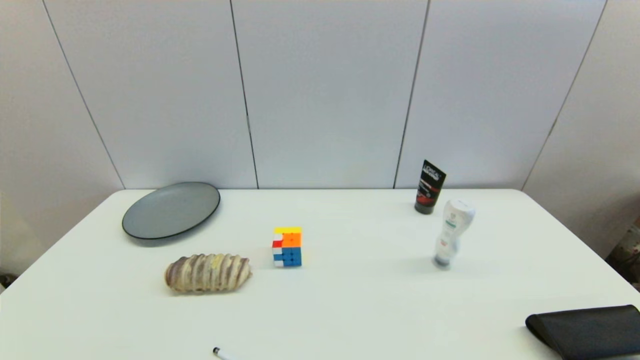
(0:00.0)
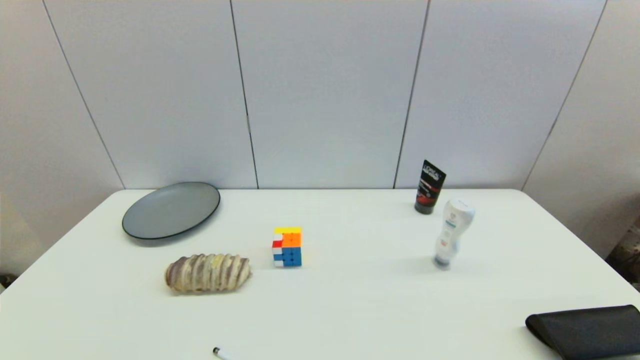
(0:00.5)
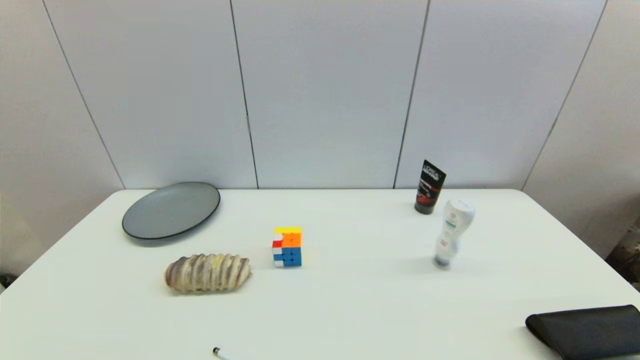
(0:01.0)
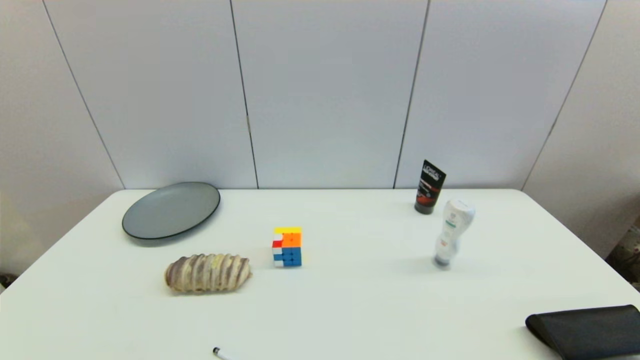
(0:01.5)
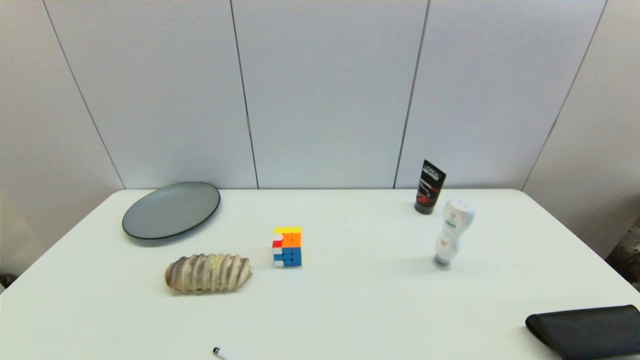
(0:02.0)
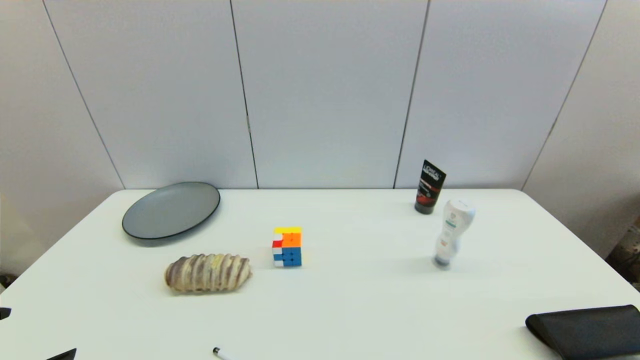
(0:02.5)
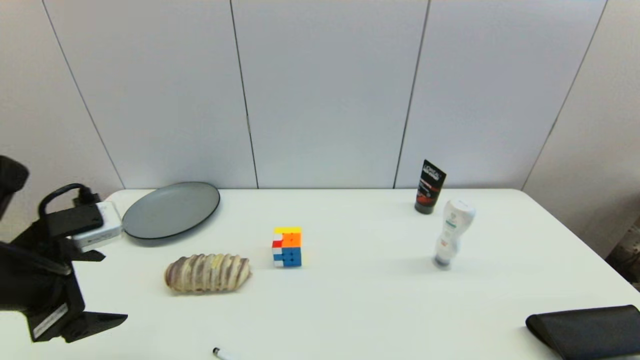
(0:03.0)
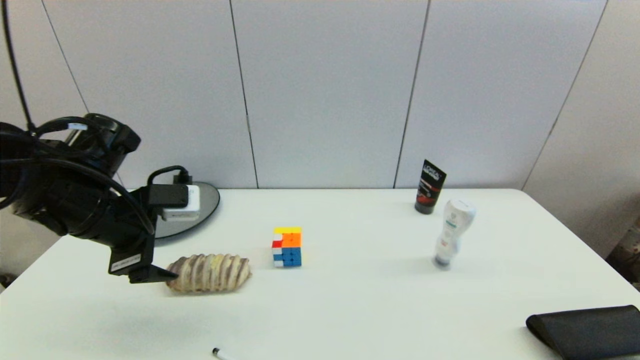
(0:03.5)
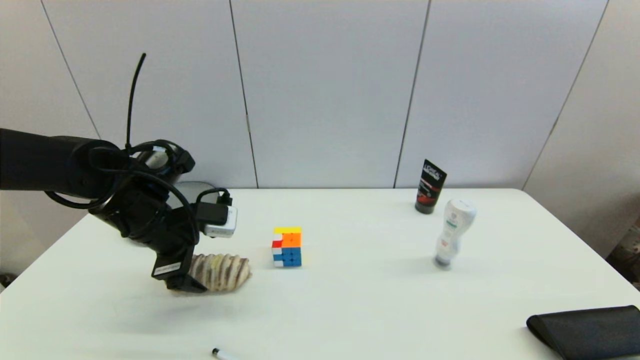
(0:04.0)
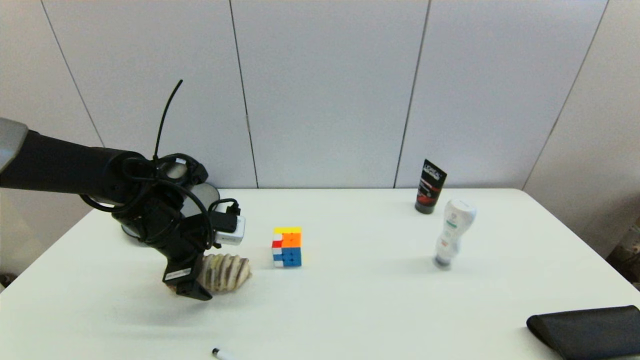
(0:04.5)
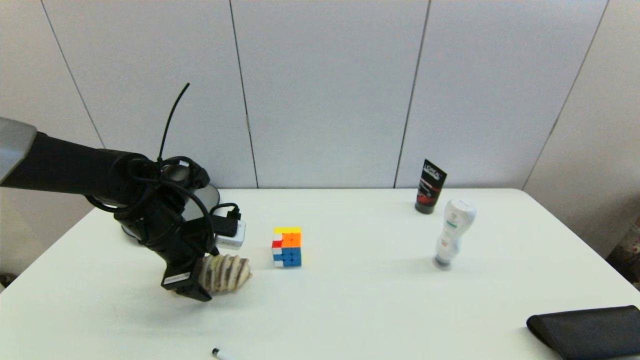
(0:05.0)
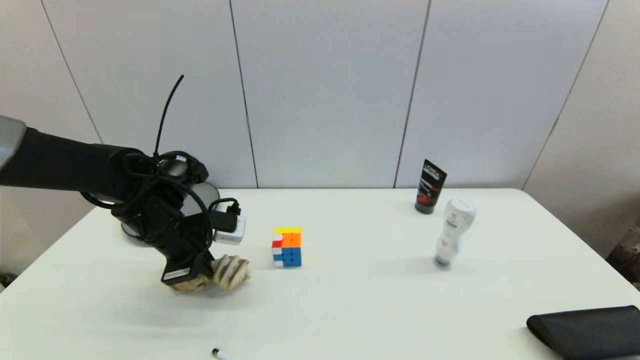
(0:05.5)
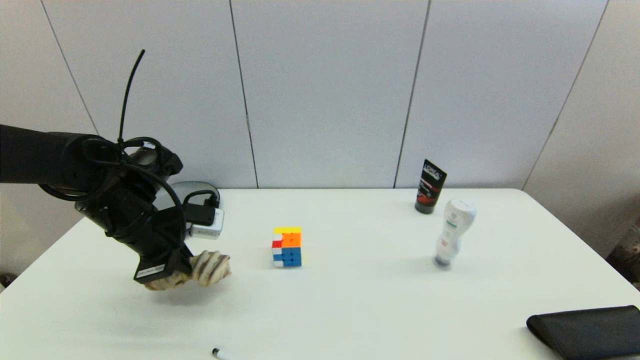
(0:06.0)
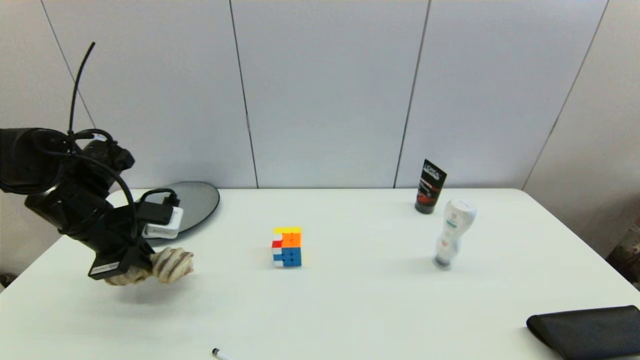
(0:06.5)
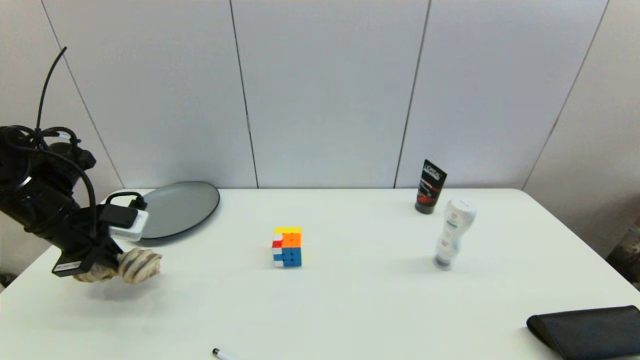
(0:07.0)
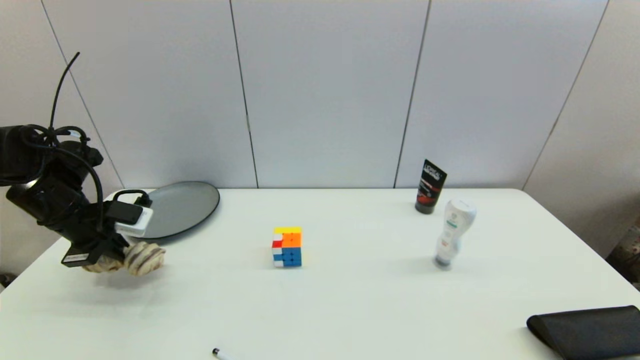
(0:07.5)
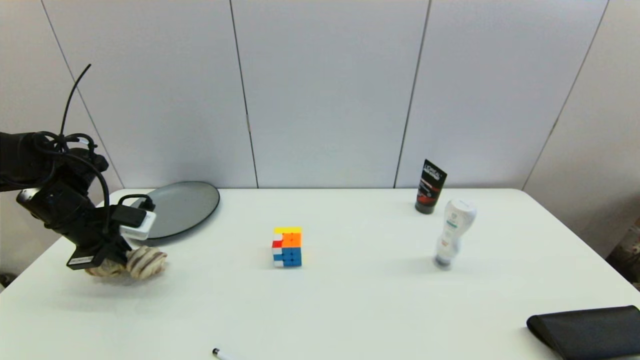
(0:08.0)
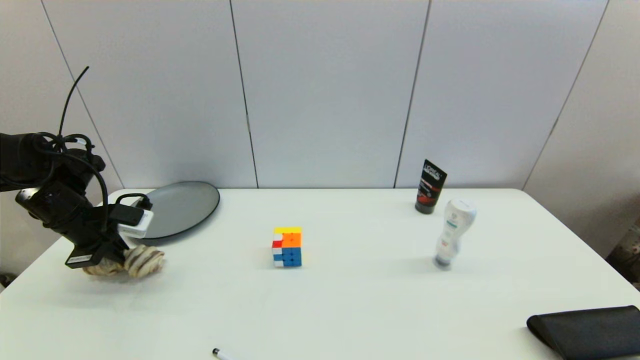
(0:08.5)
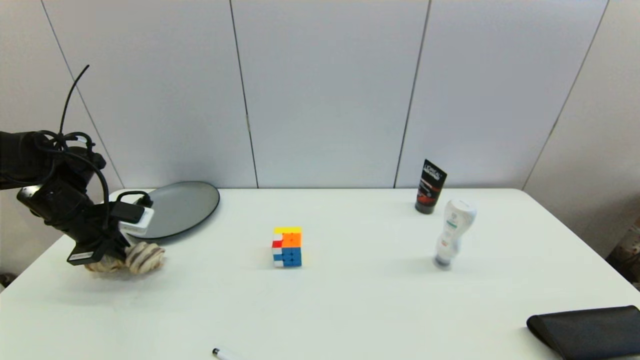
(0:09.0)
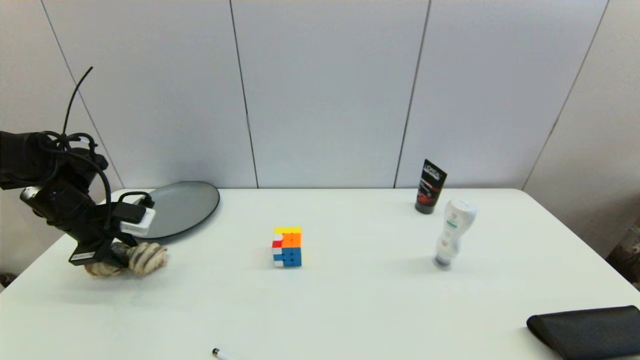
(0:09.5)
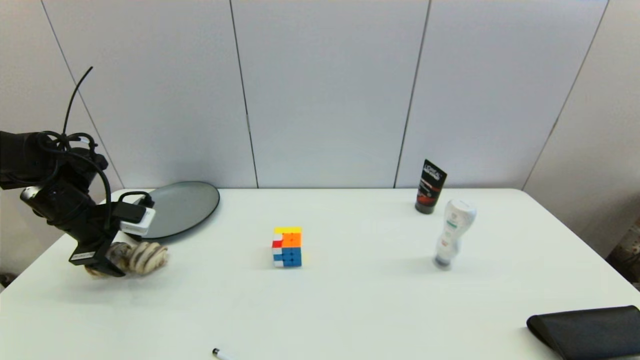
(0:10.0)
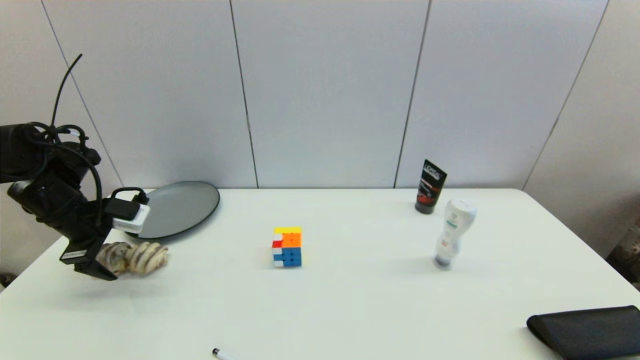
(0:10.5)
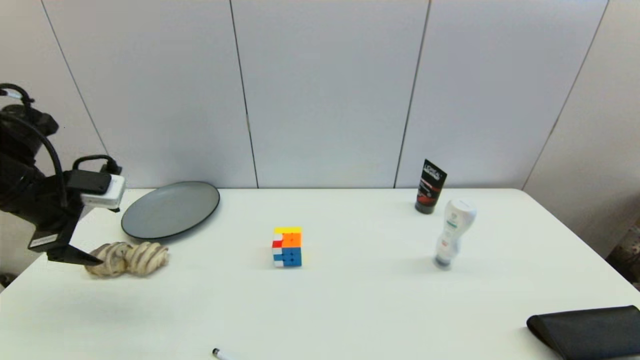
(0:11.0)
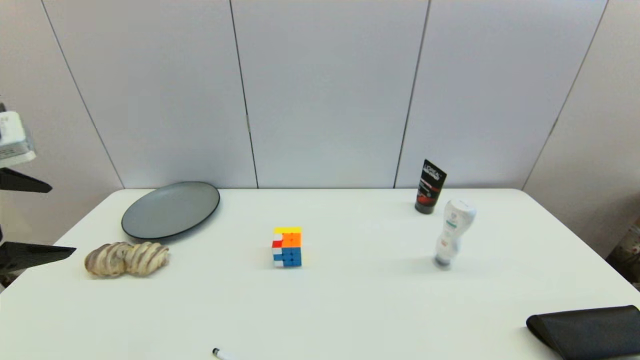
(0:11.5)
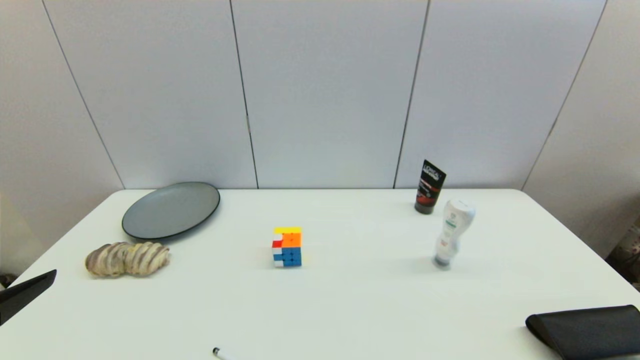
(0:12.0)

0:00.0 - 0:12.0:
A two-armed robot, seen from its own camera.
Step, 0:02.5 - 0:05.0: Grasp the long bread with left gripper.
Step, 0:05.5 - 0:09.5: Place the long bread on the table with left gripper.
0:02.0 - 0:04.0: The left gripper goes roughly 30 cm forward.
0:04.0 - 0:06.0: The left gripper closes.
0:06.0 - 0:08.0: The left gripper heads to the left, covering about 15 cm.
0:08.0 - 0:10.0: The left gripper opens up.
0:10.0 - 0:12.0: The left gripper is displaced backward by roughly 30 cm.

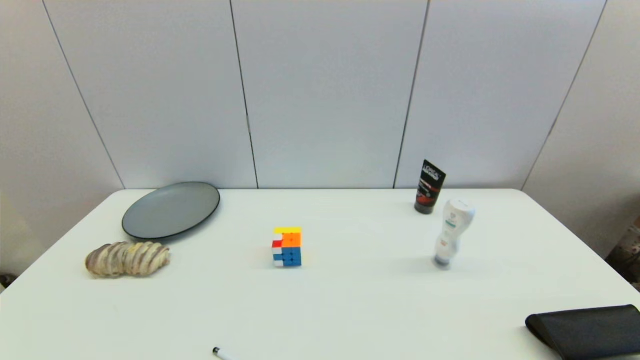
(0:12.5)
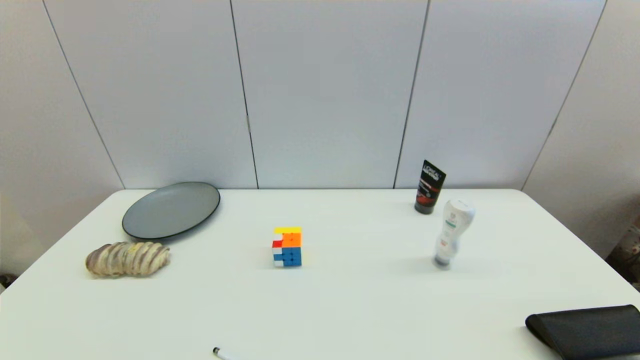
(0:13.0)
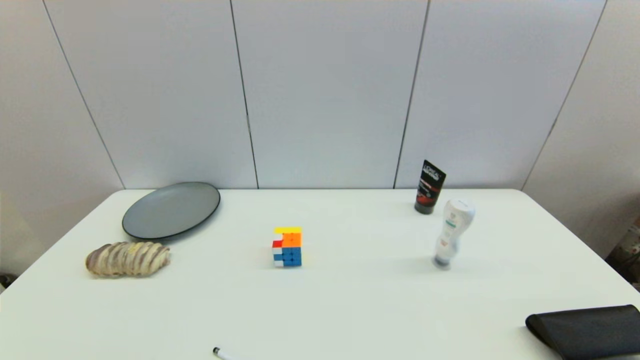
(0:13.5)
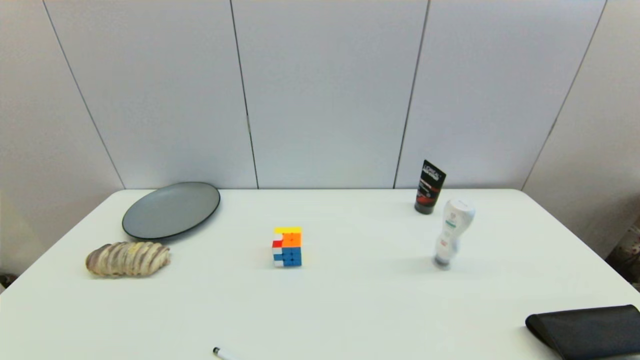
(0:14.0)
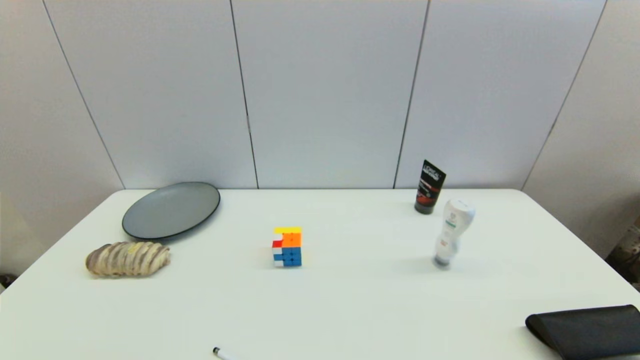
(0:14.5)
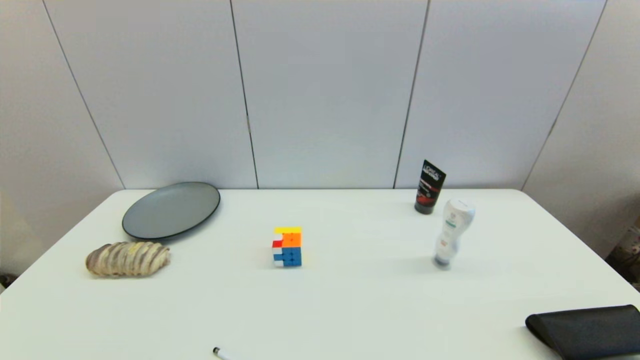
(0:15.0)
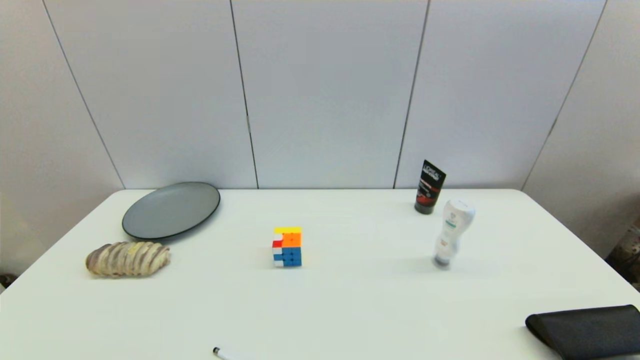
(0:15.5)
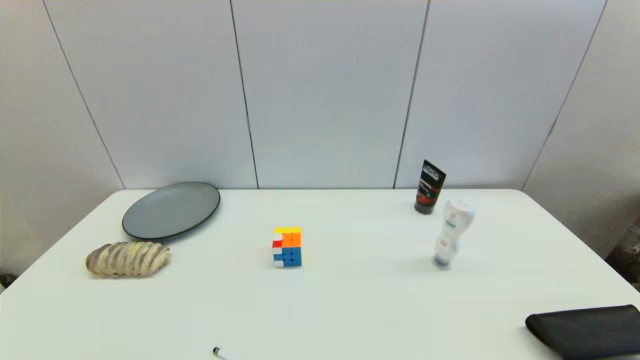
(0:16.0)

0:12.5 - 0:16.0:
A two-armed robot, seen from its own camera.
0:14.5 - 0:16.0: Both grippers stay put.

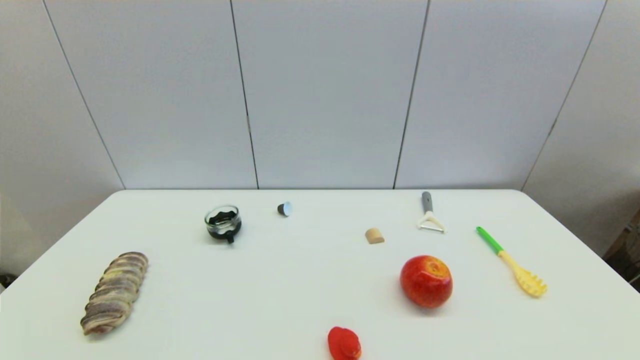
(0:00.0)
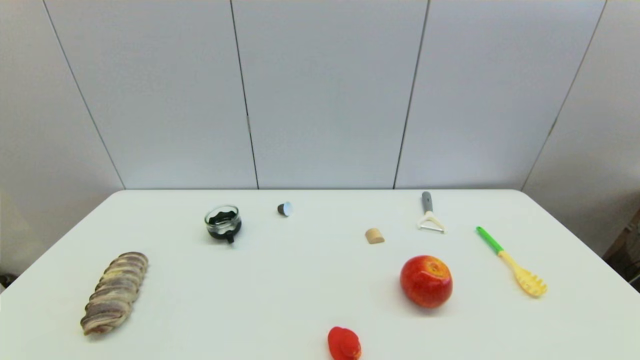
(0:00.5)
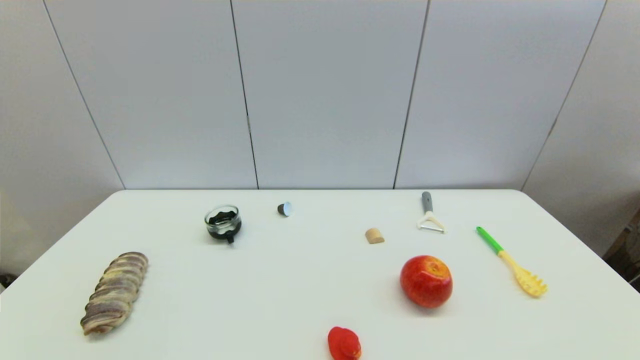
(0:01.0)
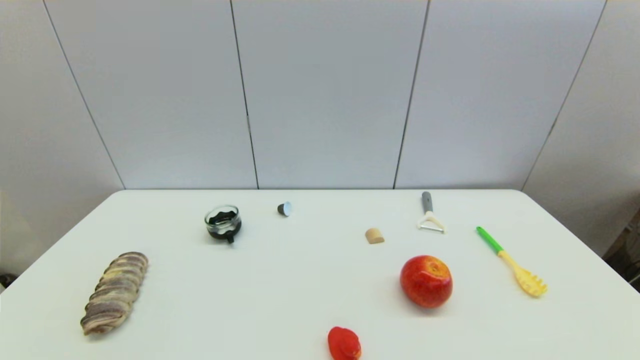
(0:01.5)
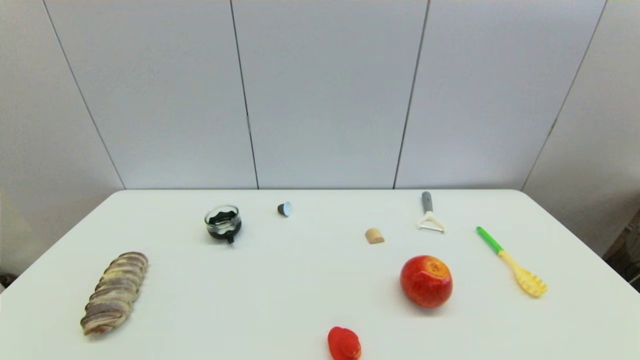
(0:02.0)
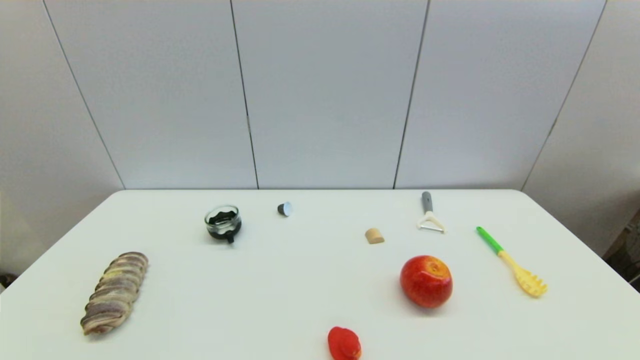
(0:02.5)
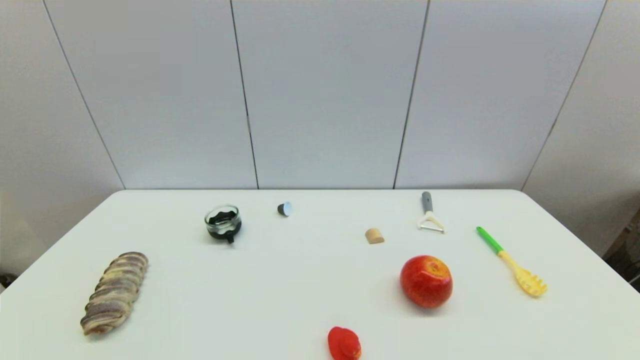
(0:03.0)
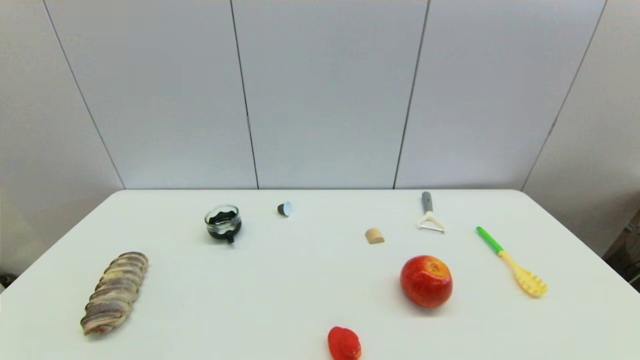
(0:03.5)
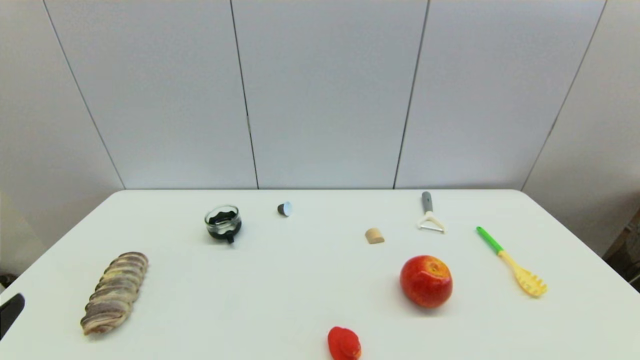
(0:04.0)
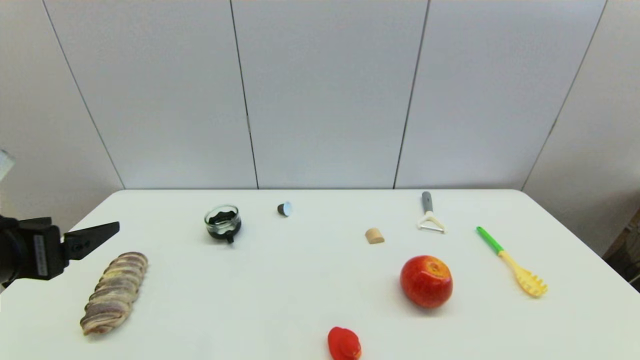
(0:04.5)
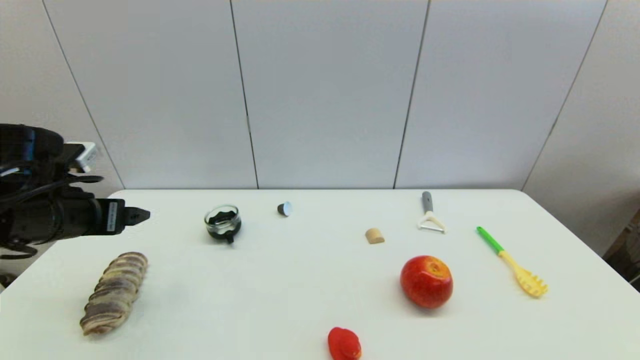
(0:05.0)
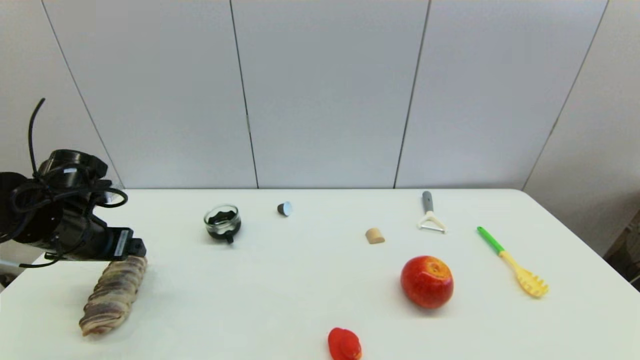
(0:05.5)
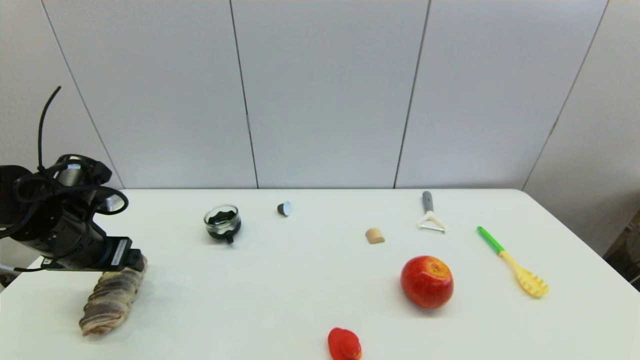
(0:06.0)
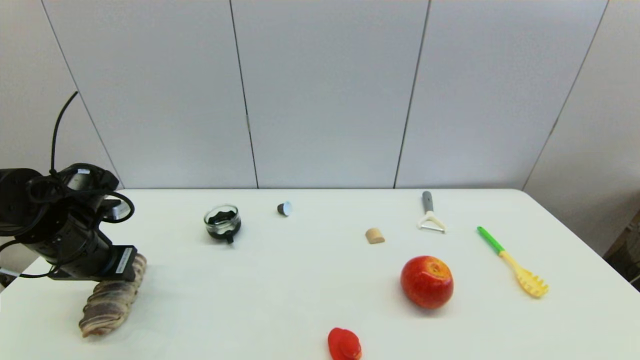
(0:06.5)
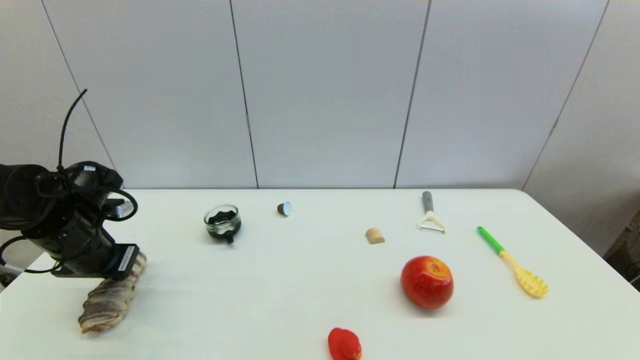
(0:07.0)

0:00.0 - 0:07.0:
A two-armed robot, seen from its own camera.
Step, 0:04.0 - 0:06.5: Grasp the long bread with left gripper.
0:00.0 - 0:02.0: Both grippers stay put.
0:03.5 - 0:05.0: The left gripper shifts roughly 30 cm forward.
0:05.0 - 0:07.0: The left gripper travels downward by roughly 5 cm, and closes its fingers.
